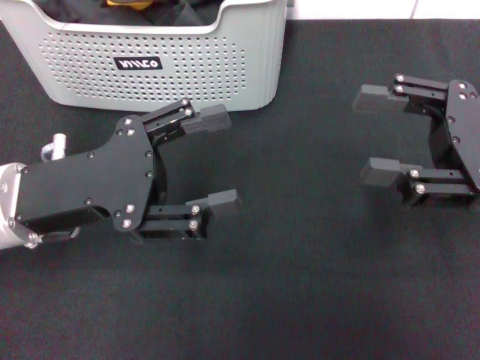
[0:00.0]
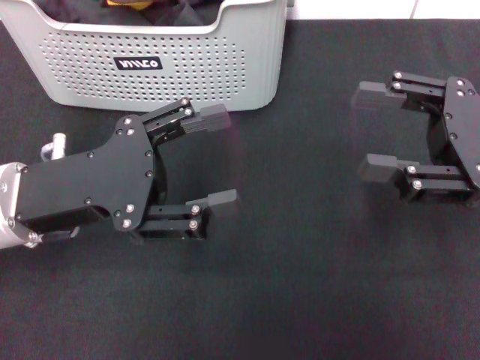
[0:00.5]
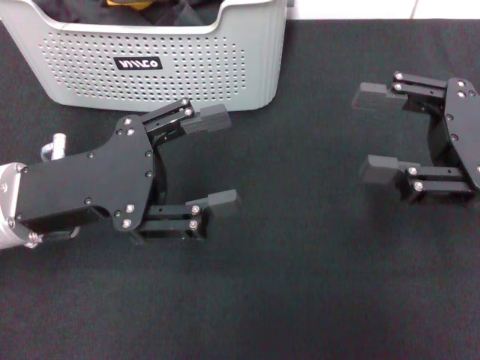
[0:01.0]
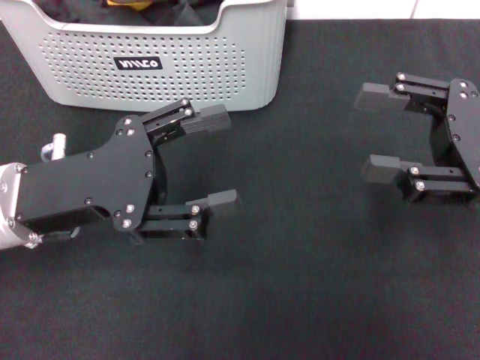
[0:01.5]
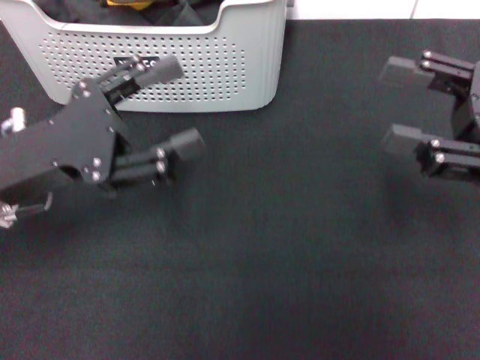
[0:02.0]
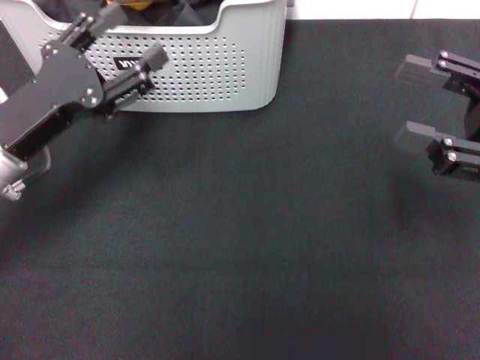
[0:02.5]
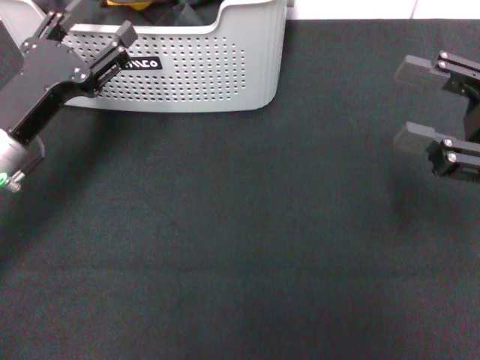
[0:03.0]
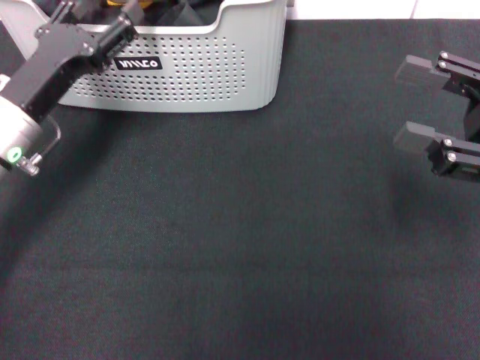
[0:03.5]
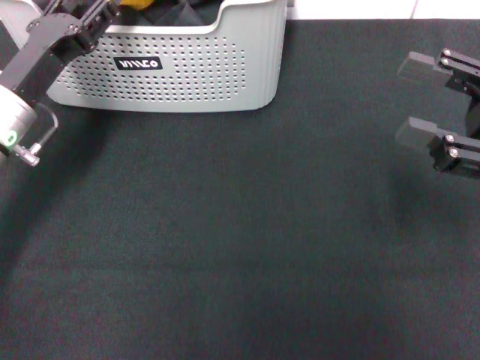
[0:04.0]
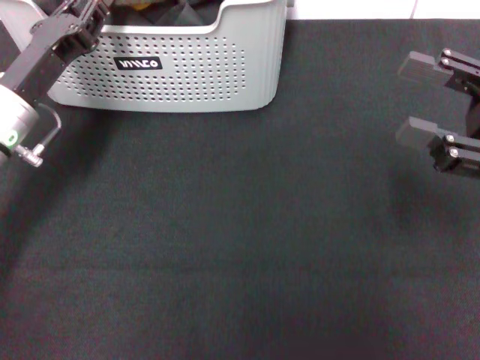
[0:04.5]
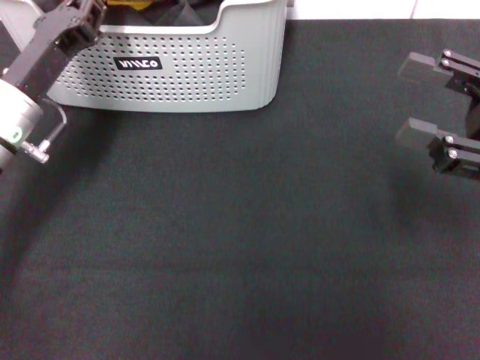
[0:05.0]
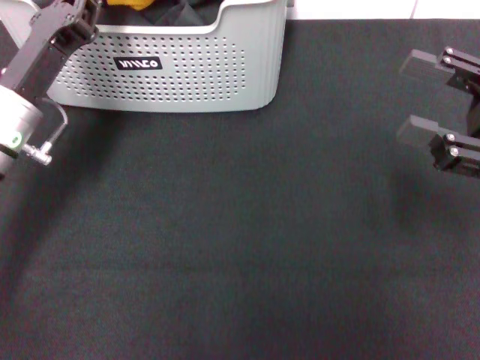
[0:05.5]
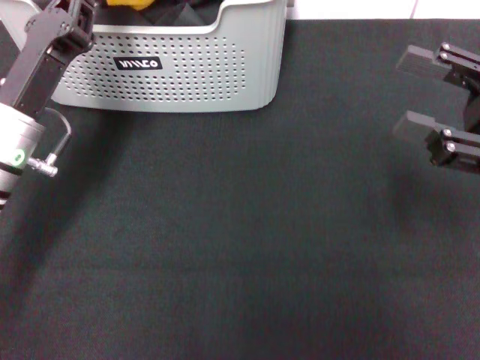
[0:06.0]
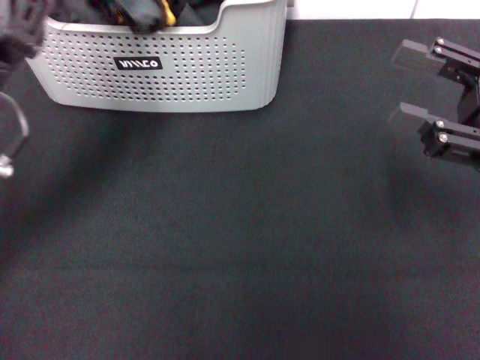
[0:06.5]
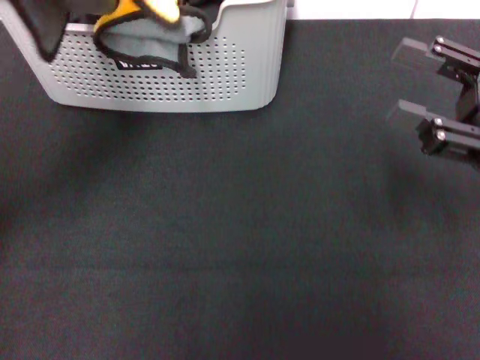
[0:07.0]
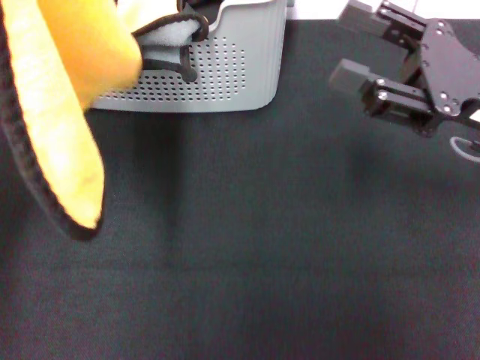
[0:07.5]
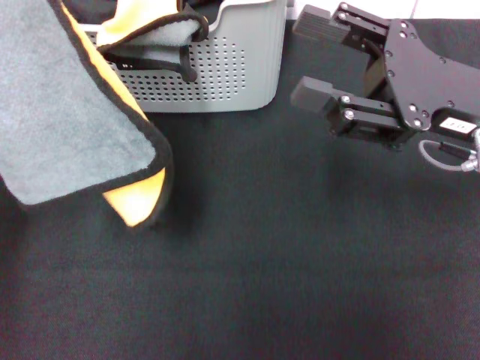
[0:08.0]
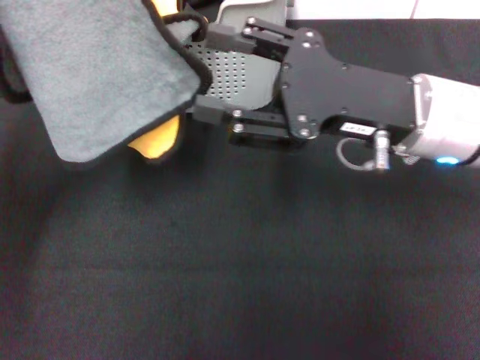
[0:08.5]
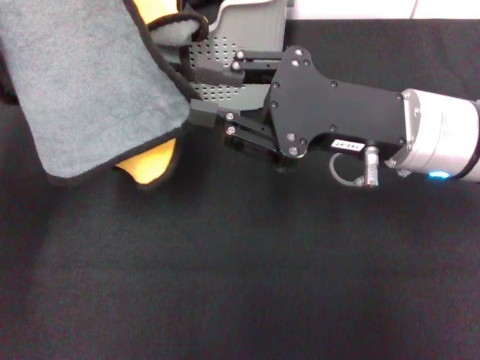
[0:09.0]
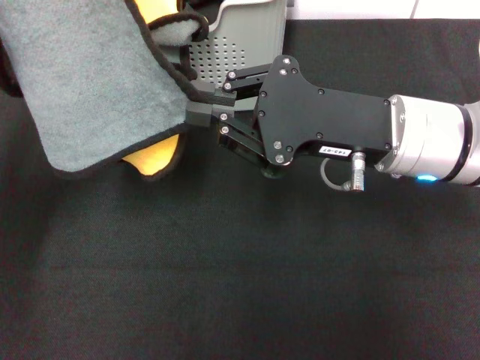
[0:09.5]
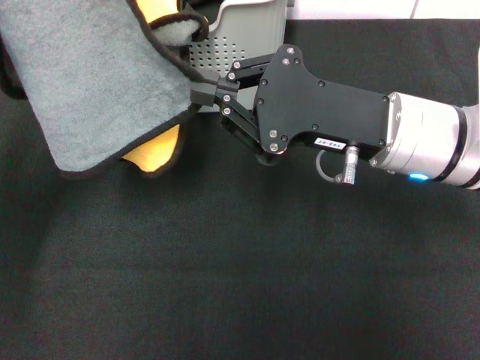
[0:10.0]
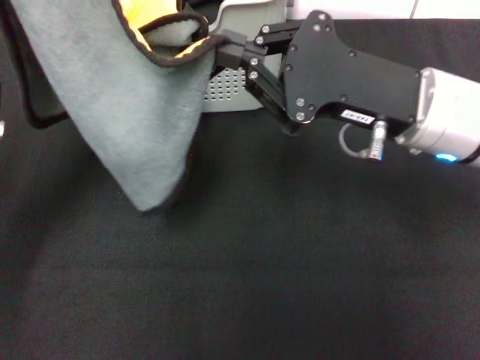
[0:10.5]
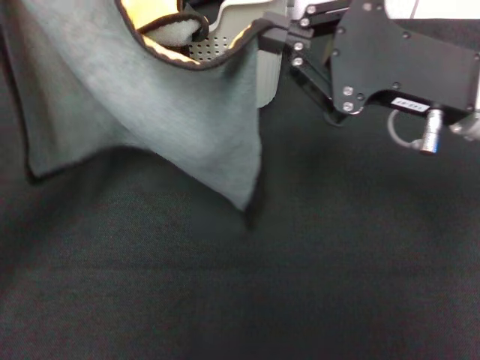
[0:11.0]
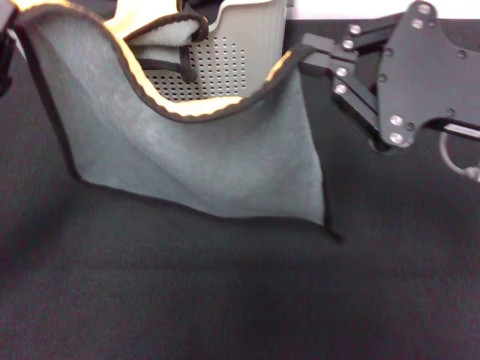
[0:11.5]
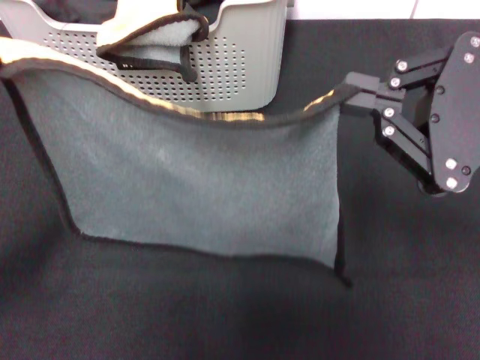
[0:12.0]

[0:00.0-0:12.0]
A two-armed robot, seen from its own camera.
Task of the whole recording: pick up the towel from the storage box and lay it flat on the black tablecloth.
Step, 0:00.0 to 0:06.0: Pick up a towel with the left gripper.
Step, 0:06.5 to 0:10.0: Spread the towel flat with the left gripper.
0:00.0 to 0:02.0: There are only small adjustments of the grippers.
0:02.0 to 0:04.0: The left gripper is displaced forward by some 10 cm.
0:04.0 to 0:06.0: The left gripper closes up.
0:06.0 to 0:08.0: The left gripper heads upward, covering approximately 15 cm. Meanwhile the right gripper moves to the left, about 10 cm.
0:08.0 to 0:10.0: The right gripper is displaced to the left by some 5 cm, and closes its fingers.
0:10.0 to 0:12.0: The right gripper moves to the right, backward and upward, about 15 cm. Meanwhile the left gripper is displaced downward, backward and to the left by some 15 cm.

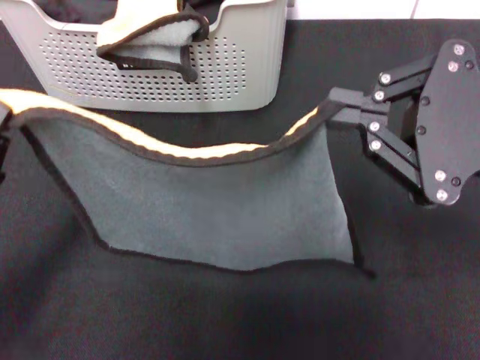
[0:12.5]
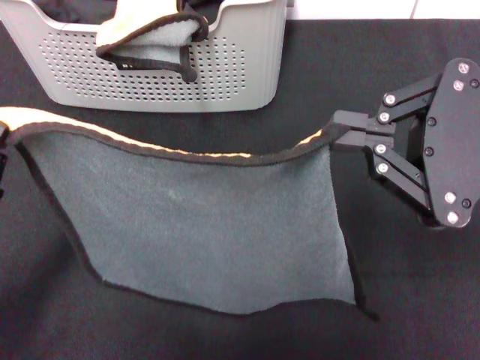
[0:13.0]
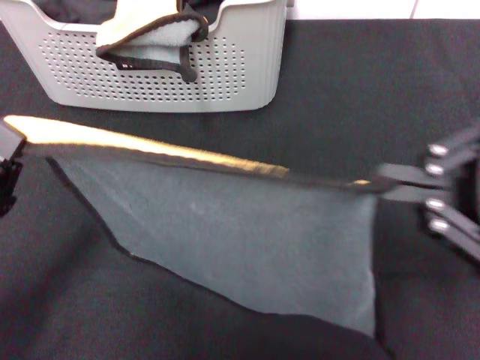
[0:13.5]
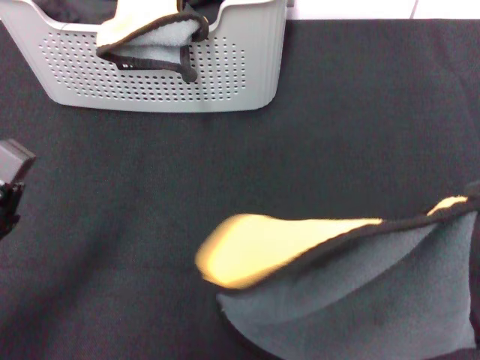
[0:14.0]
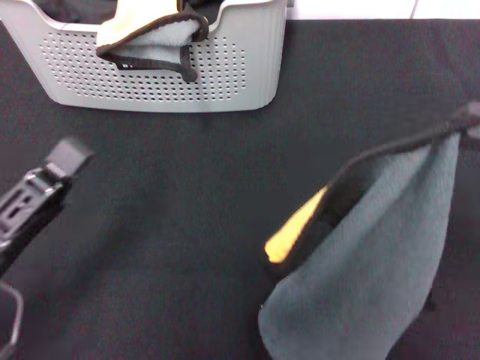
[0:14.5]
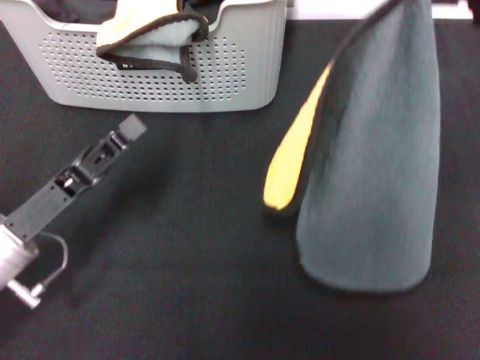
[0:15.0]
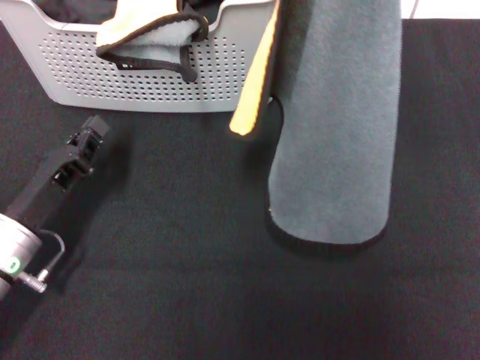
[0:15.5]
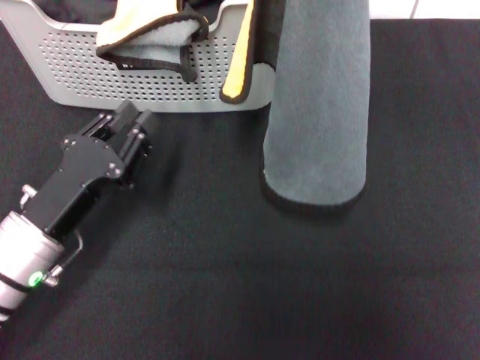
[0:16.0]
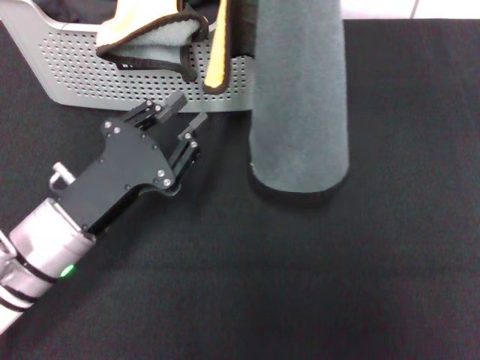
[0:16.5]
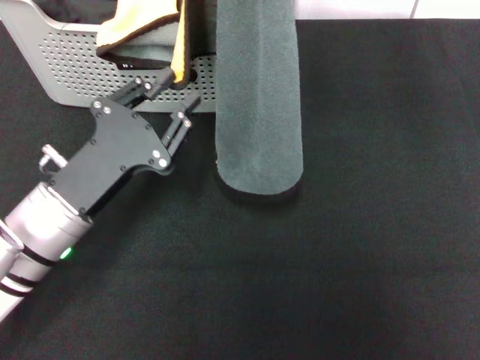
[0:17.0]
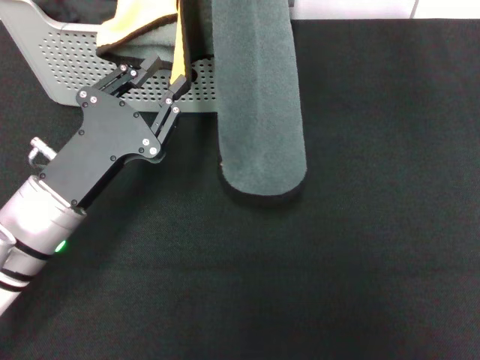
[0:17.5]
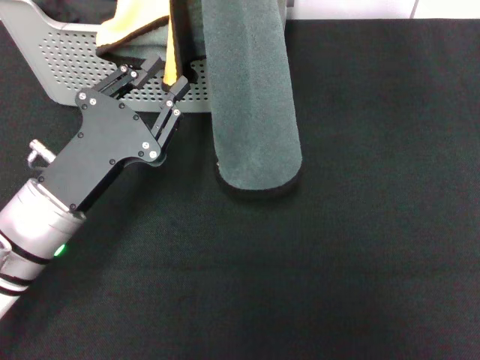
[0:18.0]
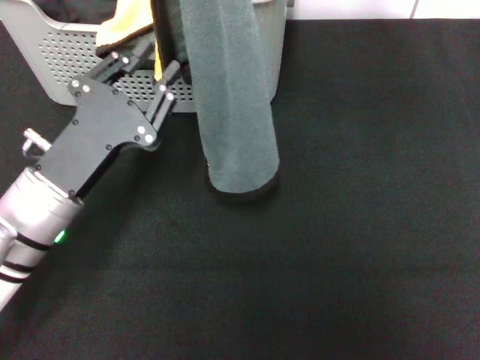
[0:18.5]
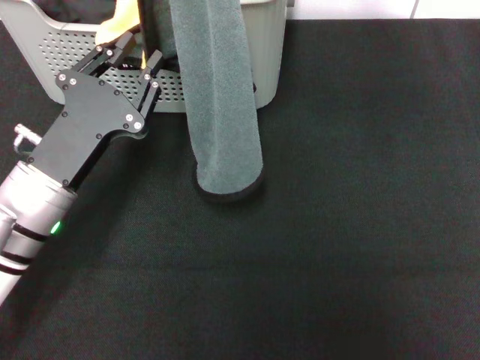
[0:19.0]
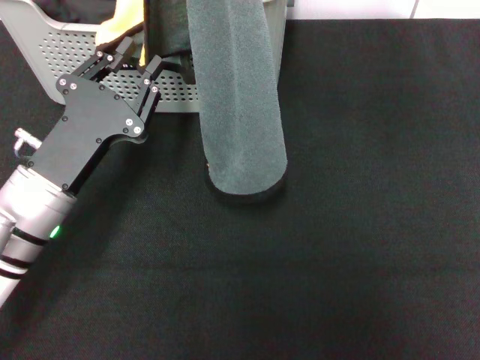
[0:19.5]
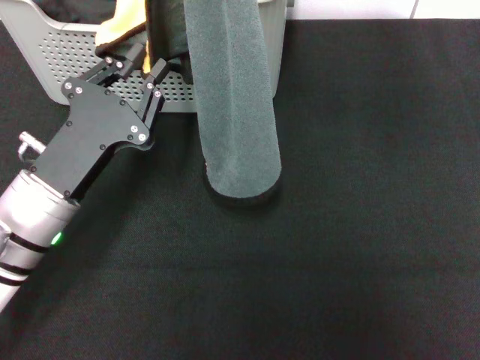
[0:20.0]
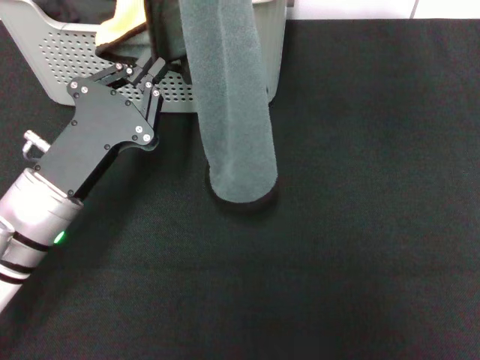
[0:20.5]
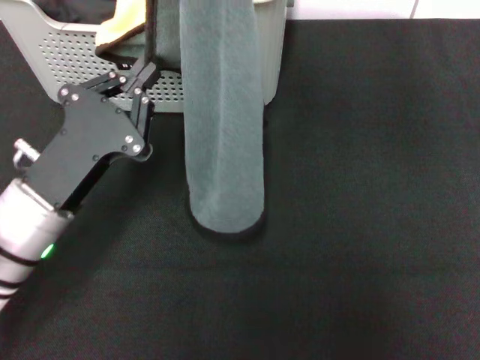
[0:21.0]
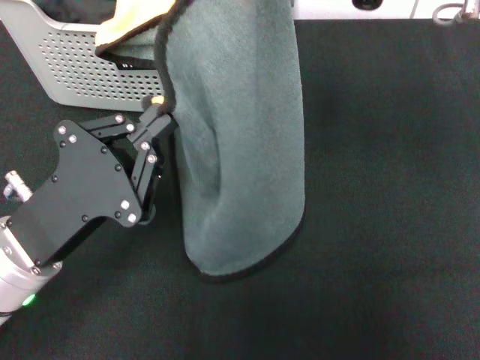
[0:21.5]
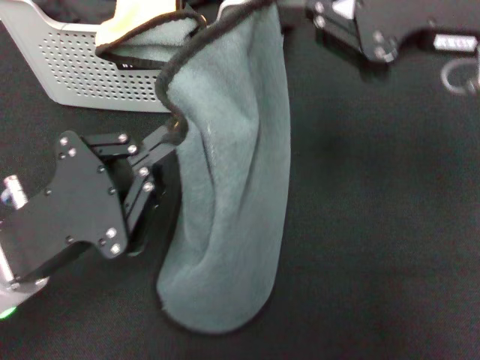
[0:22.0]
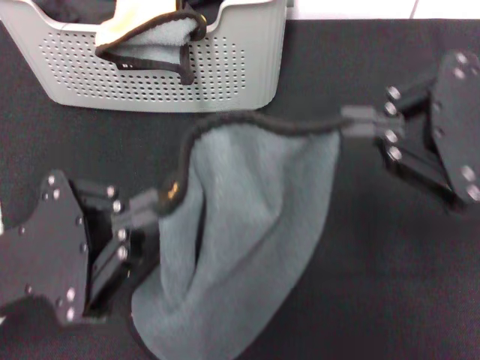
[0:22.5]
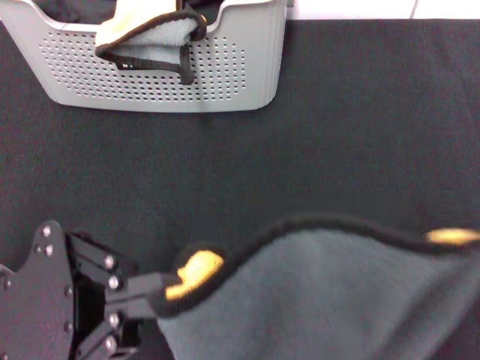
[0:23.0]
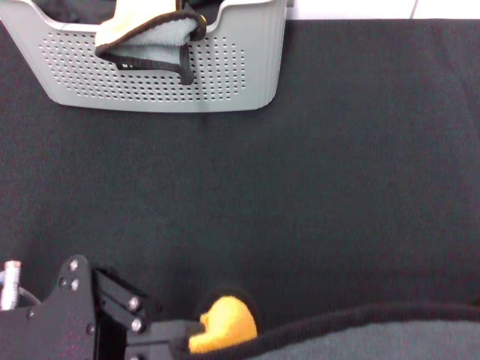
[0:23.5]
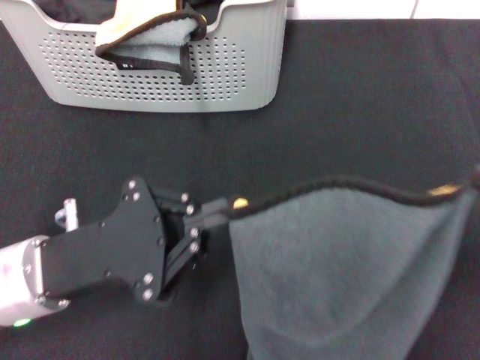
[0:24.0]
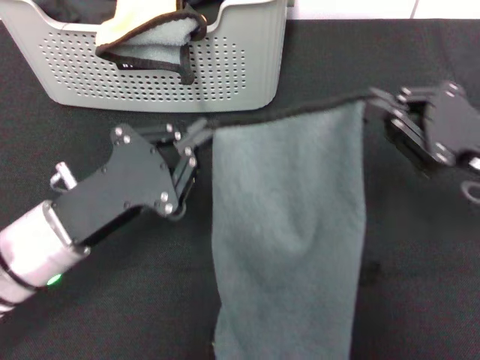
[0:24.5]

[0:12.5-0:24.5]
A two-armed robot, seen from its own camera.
Task of the whole recording: pick up the towel from the storage box and lay it flat on the black tablecloth.
0:12.5 to 0:14.5: The right gripper travels to the right by about 5 cm.
0:14.5 to 0:16.5: The left gripper shifts about 10 cm forward, and opens. Meanwhile the right gripper travels forward, upward and to the left by some 20 cm.
0:16.5 to 0:18.5: The right gripper moves to the left, about 5 cm.
0:18.5 to 0:20.5: The grippers make only small movements.
0:20.5 to 0:22.5: The right gripper shifts some 15 cm backward, to the right and downward. Meanwhile the left gripper is displaced backward by approximately 5 cm.
0:22.5 to 0:24.5: The right gripper shifts roughly 15 cm downward and forward; the left gripper changes place by about 5 cm.

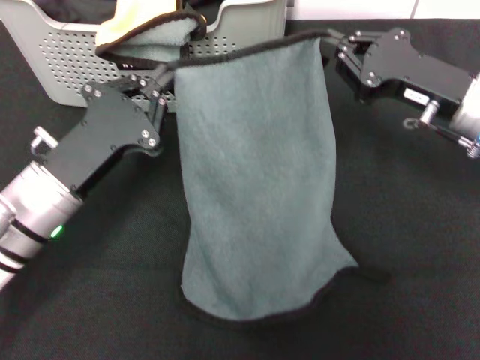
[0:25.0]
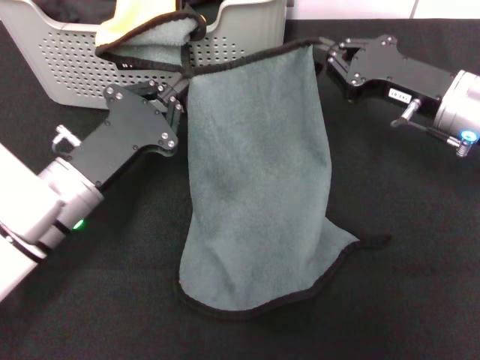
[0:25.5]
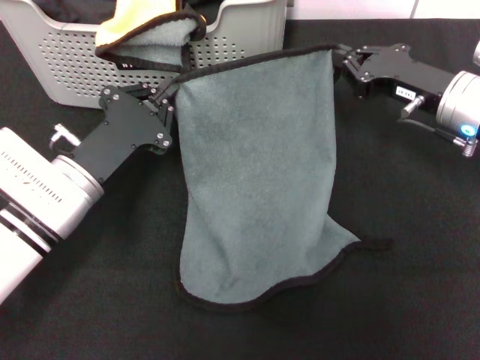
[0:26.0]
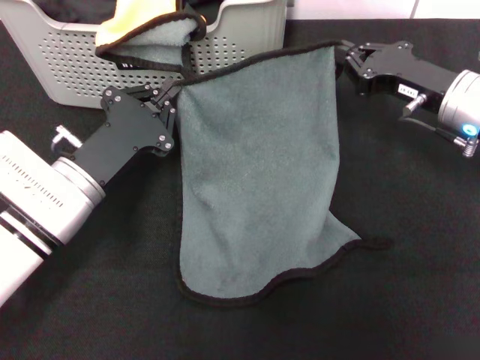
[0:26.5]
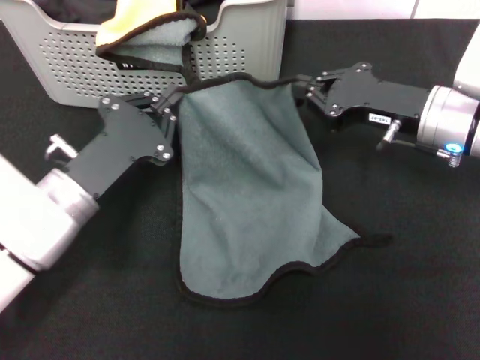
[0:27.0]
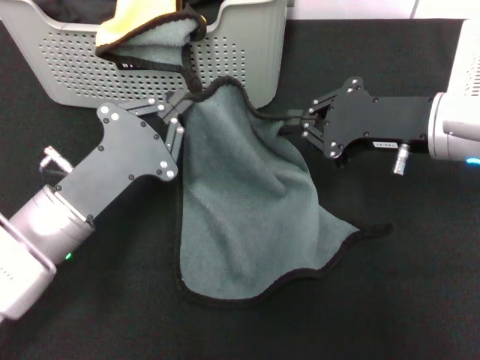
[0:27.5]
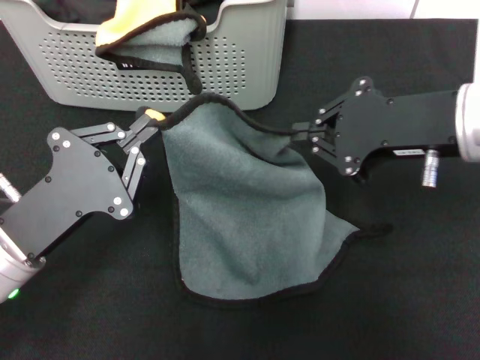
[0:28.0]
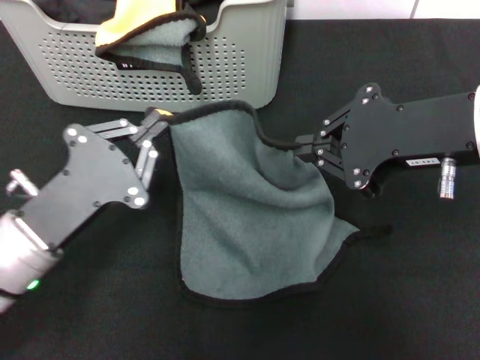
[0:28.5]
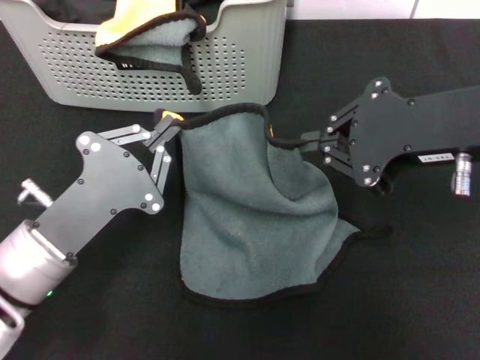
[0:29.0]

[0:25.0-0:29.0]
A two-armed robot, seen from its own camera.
Task of the whole recording: pick up the towel from the storage box and lay it flat on the black tablecloth.
0:27.0 to 0:29.0: The left gripper is displaced backward by roughly 5 cm. Meanwhile the right gripper goes some 15 cm upward and backward.
